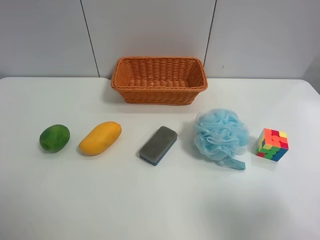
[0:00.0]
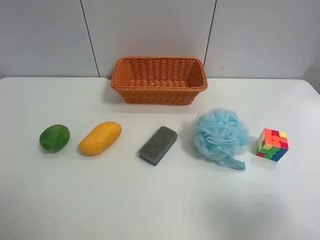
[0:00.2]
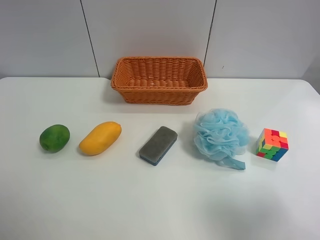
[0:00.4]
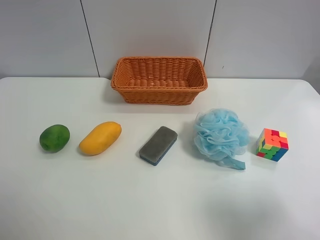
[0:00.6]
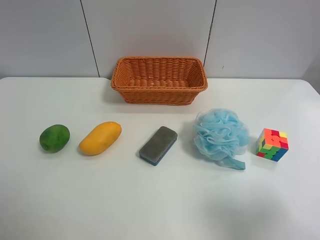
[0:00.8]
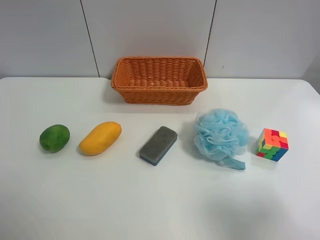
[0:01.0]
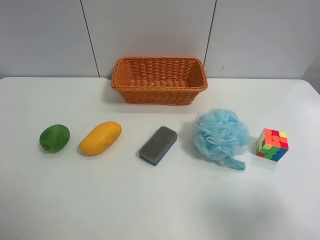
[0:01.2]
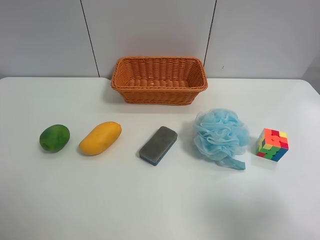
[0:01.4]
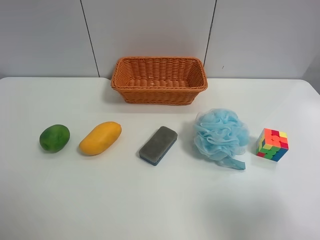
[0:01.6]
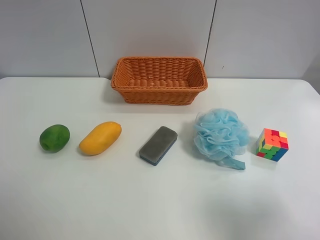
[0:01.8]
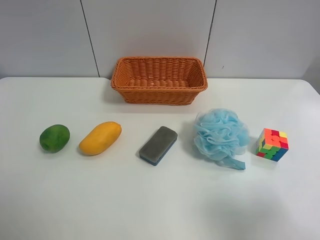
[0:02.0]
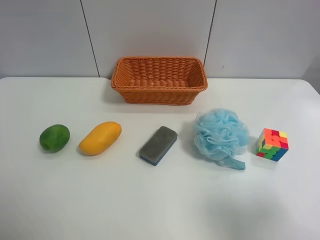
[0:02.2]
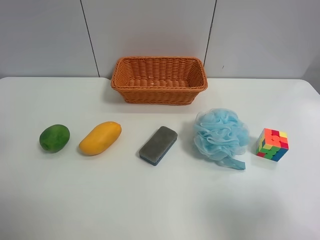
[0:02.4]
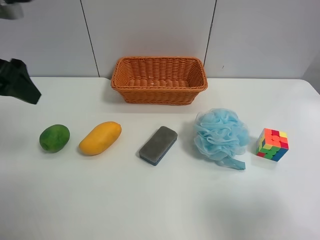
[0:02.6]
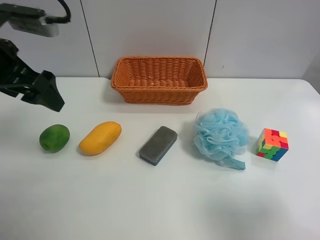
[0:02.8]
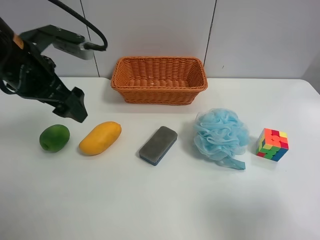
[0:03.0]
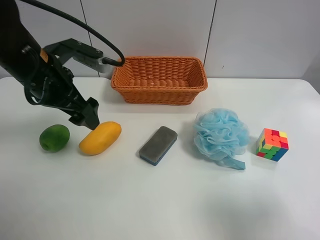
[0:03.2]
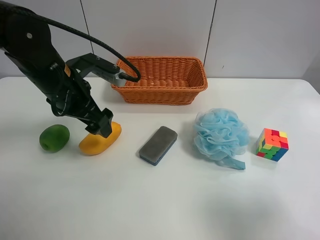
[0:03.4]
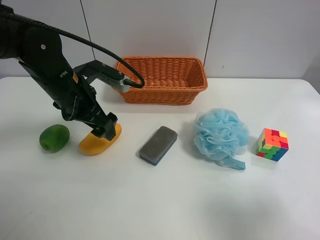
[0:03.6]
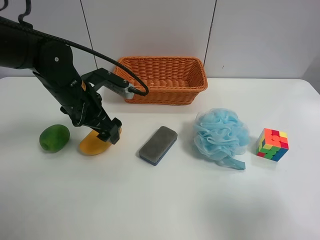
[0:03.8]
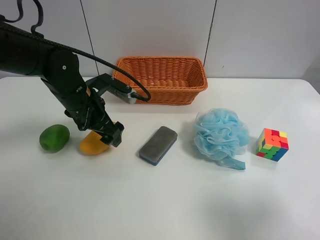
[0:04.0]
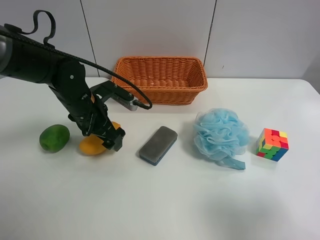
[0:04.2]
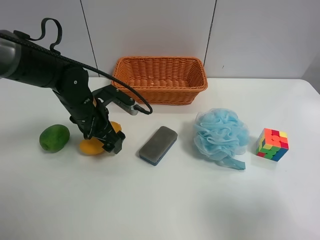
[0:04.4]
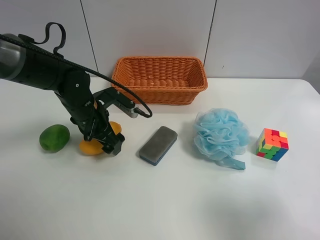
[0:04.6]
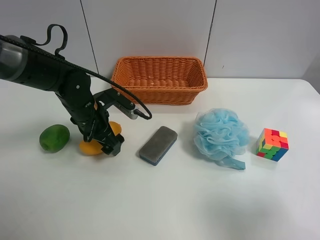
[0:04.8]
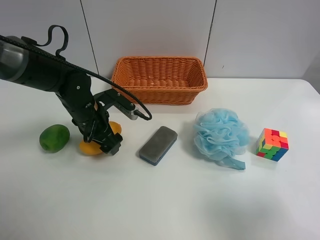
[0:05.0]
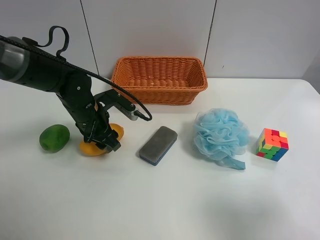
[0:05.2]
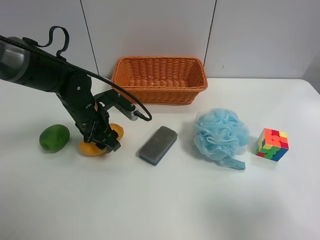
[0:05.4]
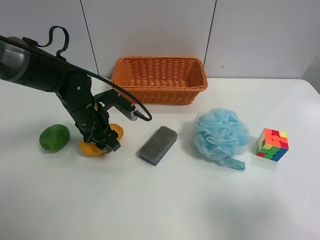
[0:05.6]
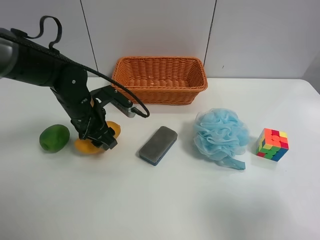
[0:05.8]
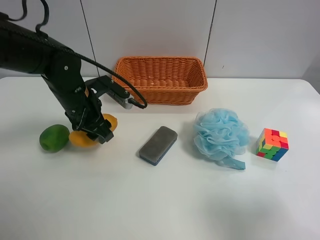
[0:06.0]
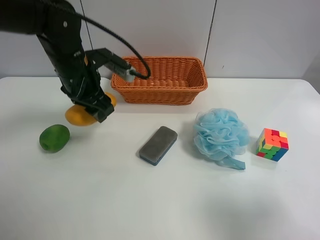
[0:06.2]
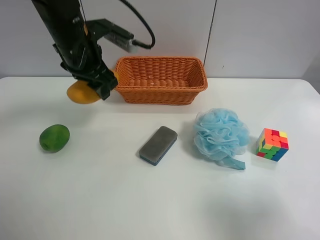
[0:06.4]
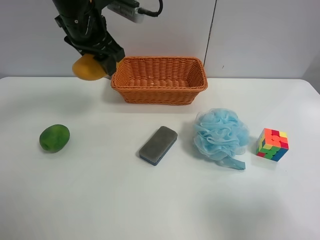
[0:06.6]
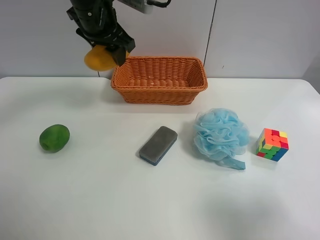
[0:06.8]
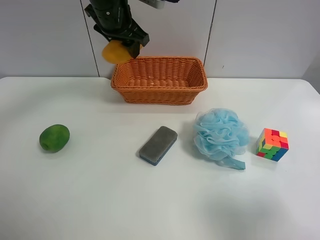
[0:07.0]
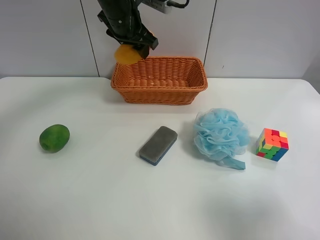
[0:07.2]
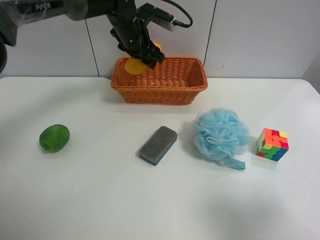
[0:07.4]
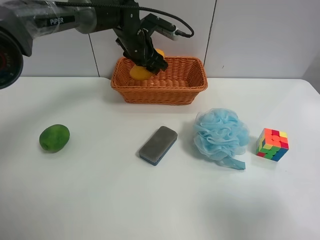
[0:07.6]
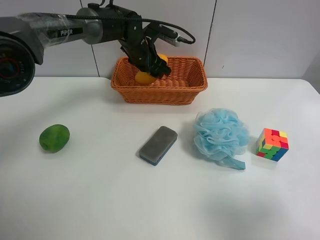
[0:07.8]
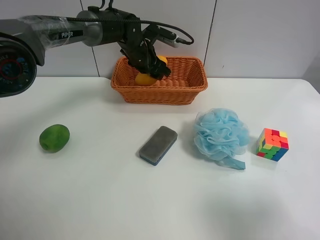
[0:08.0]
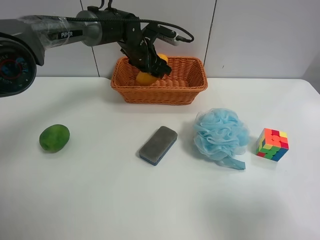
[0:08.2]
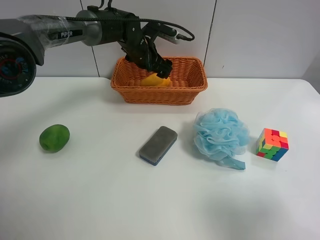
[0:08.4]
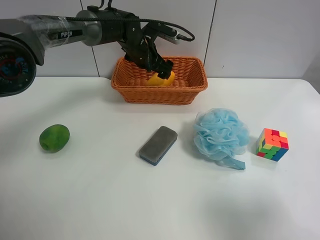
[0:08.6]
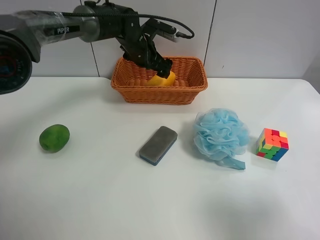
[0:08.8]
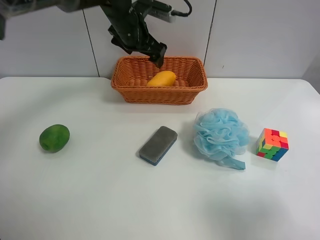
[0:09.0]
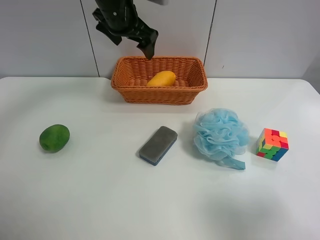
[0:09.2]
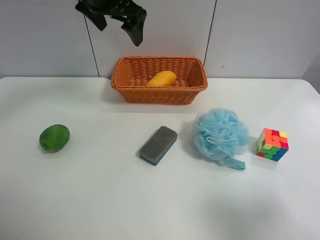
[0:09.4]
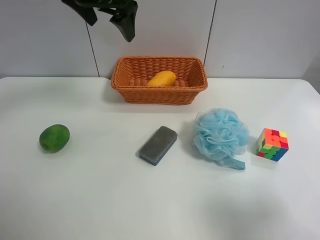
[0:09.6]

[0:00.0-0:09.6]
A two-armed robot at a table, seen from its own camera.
Task of the whole recording: use the left gripper to grab items from the table and place them in the basket.
Step, 0:00.0 to 0:05.2: Grasp the mango with the left gripper.
Step, 0:05.4 to 0:08.6: Place the mango into the basket with the left gripper.
0:00.0 to 0:01.6: Both grippers stay about where they are.
0:01.6 to 0:03.2: The left gripper goes about 30 cm forward and to the right.
0:03.2 to 0:04.8: The left gripper heads downward, covering roughly 10 cm.
0:04.8 to 0:06.4: The left gripper travels upward by about 15 cm, and closes.
0:06.4 to 0:08.0: The left gripper travels forward, downward and to the right by roughly 20 cm.
0:08.0 to 0:09.6: The left gripper moves upward and backward, about 20 cm, and opens up.

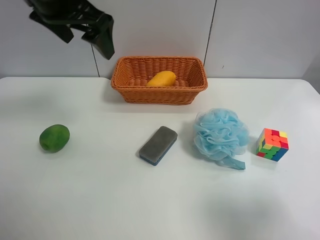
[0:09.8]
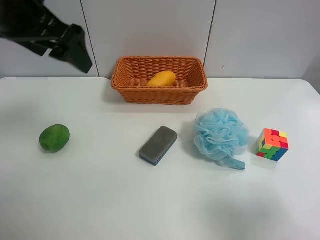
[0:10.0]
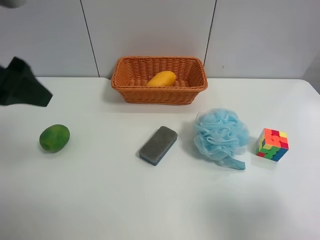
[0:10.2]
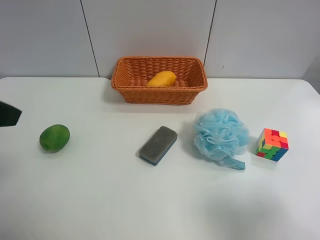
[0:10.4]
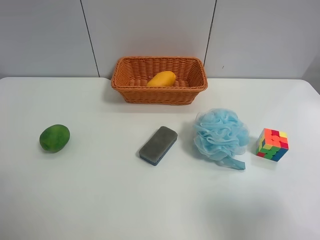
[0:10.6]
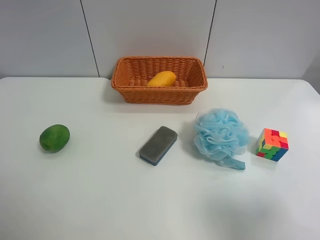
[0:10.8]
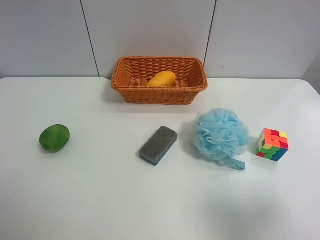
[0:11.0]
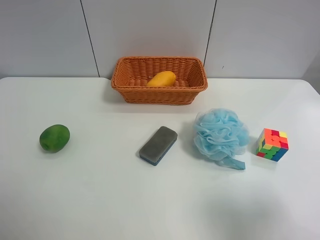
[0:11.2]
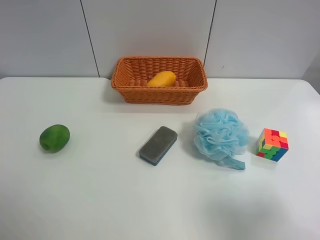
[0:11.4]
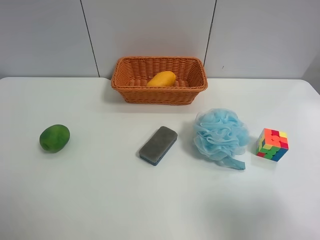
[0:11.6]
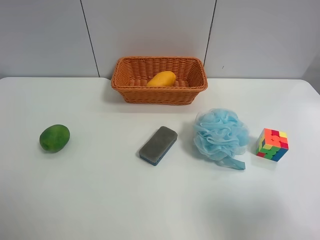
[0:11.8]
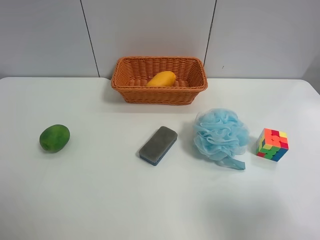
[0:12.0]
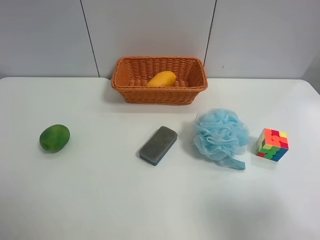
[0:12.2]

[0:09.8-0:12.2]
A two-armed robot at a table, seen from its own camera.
Task of the whole recording: use the left gripper to grab items from the table and place them in the basket.
0:09.8 to 0:11.0: The left gripper shifts roughly 30 cm backward and to the left.

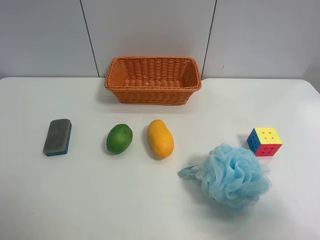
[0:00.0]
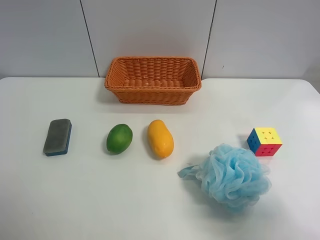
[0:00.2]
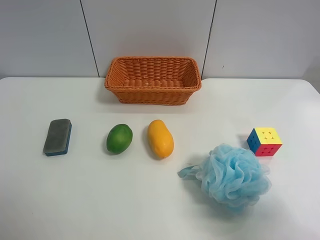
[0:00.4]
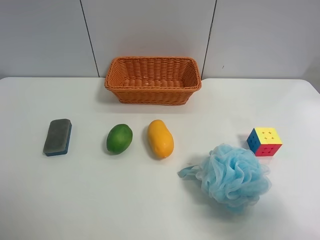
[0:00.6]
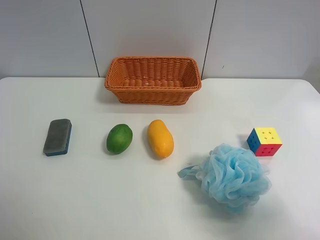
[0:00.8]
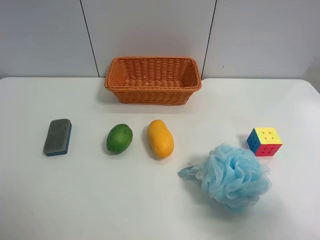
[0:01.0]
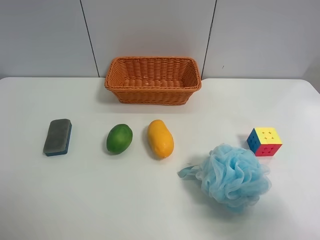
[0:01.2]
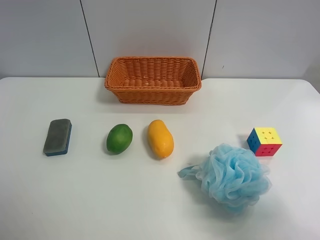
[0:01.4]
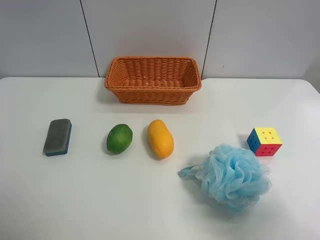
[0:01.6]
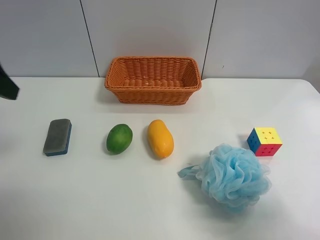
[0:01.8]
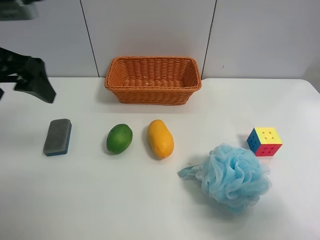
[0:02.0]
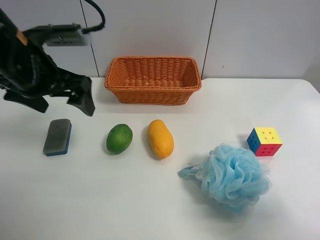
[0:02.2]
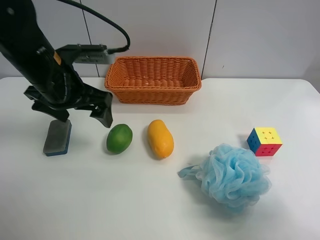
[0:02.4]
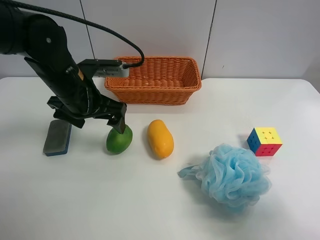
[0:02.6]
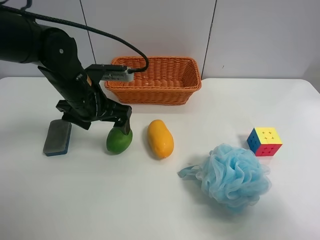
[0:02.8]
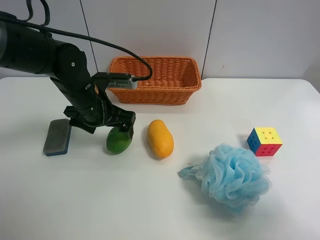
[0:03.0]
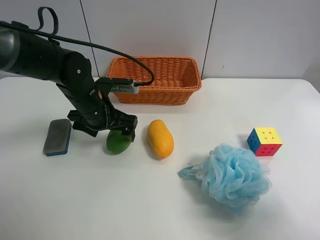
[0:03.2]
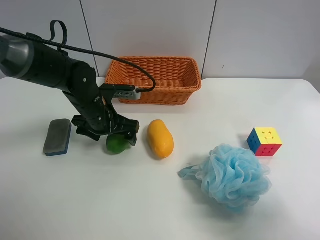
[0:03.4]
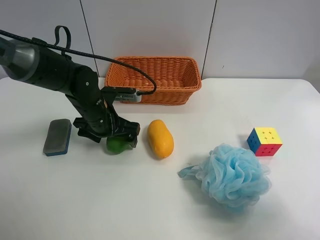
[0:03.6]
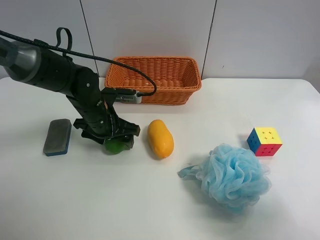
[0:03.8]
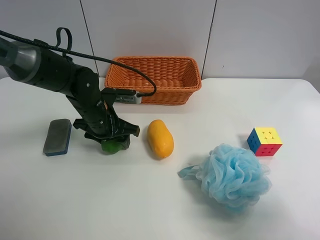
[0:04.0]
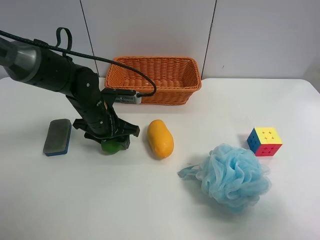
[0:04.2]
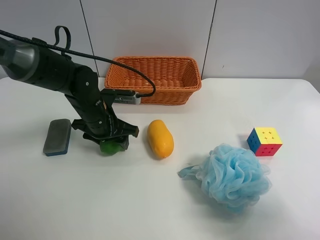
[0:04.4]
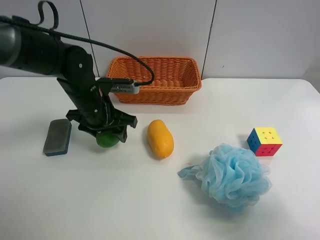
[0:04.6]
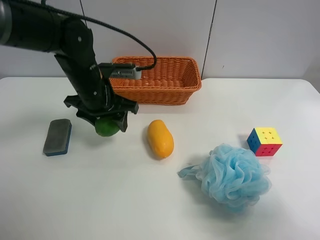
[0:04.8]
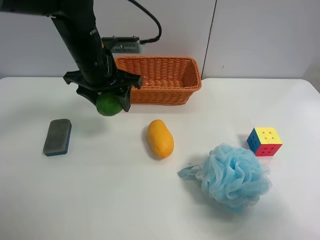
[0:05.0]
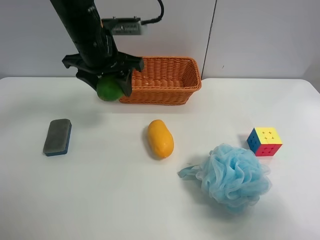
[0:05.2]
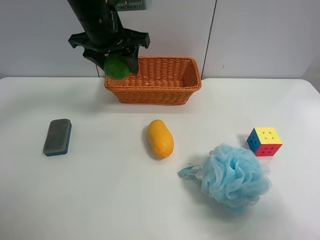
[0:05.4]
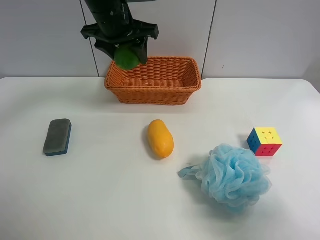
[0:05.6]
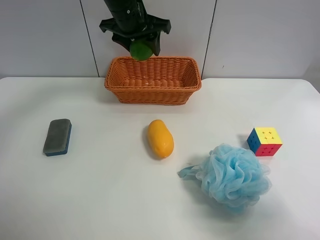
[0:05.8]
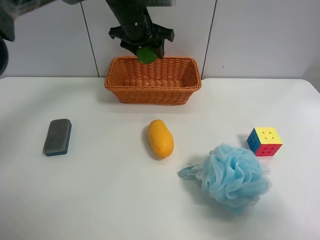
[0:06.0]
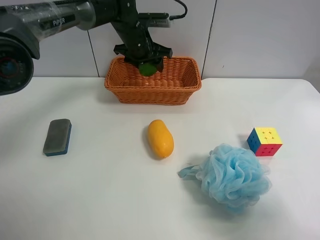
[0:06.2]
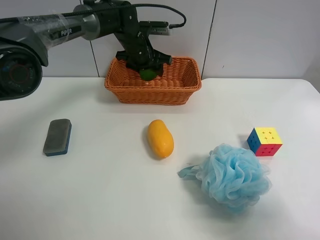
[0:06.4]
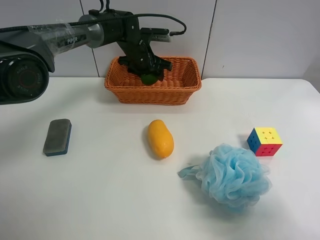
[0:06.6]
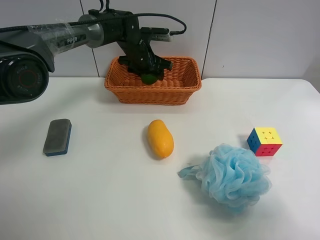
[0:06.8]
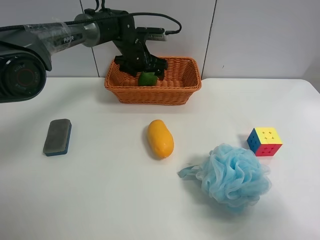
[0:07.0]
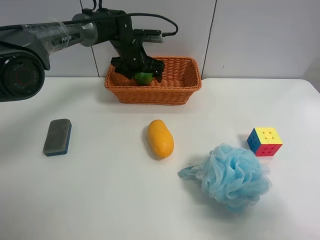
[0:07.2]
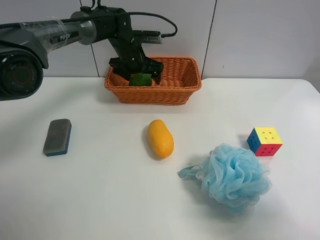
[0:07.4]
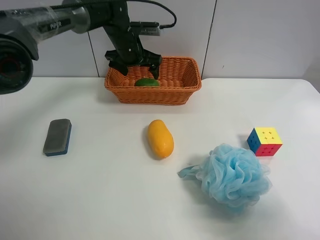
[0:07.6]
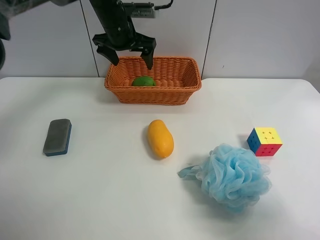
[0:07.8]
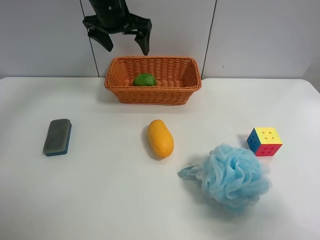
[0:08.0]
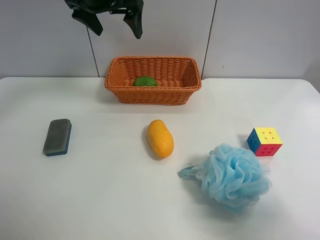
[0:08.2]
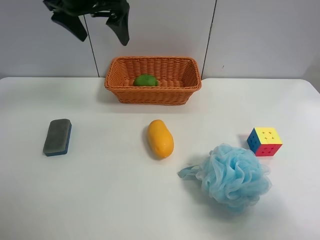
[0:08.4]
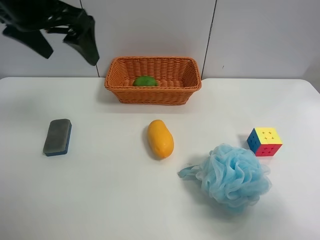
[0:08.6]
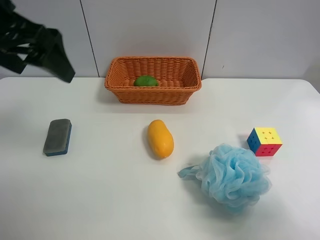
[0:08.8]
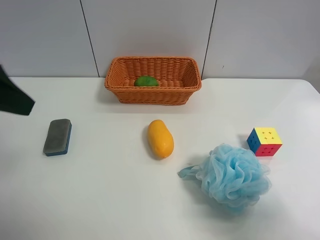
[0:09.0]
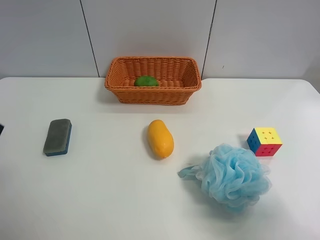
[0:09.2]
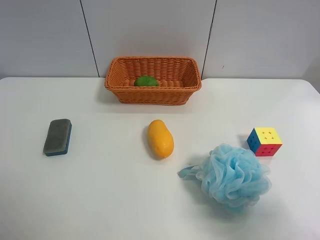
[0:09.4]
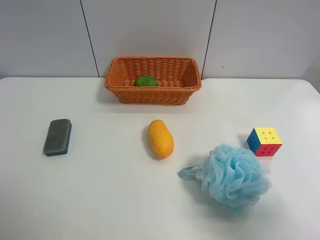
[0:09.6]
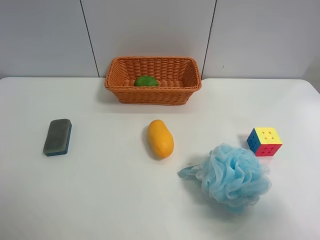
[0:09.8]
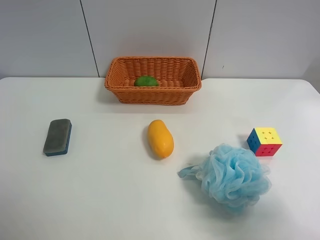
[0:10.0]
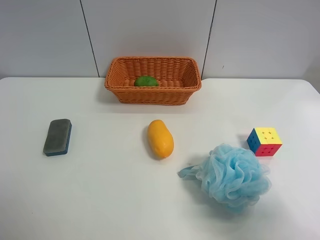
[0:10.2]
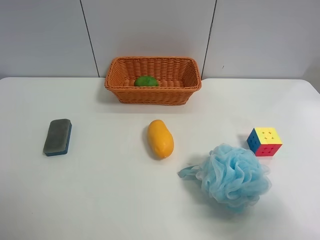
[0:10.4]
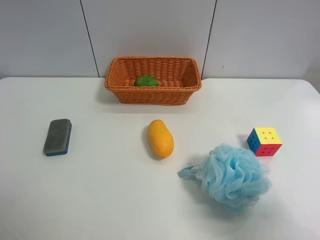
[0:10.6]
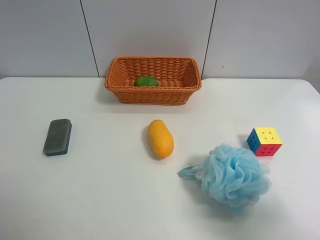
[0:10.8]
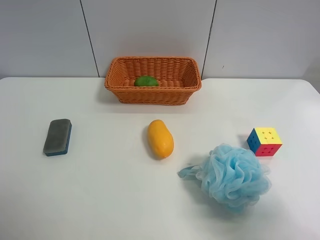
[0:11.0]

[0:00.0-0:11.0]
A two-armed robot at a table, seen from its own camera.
Task of the whole recording: use the left gripper to grab items from the table and place them in the basket.
Step, 0:00.0 to 0:04.0: Grasp the apple rubber puff with the left gripper.
Step, 0:04.2 to 0:07.2: Place the apple rubber puff into the basket with the left gripper.
0:01.6 to 0:03.2: The left gripper shifts approximately 35 cm forward, downward and to the right.
0:03.2 to 0:04.8: The left gripper closes.
0:04.8 to 0:06.2: The left gripper heads forward, to the right and upward, covering approximately 20 cm.
0:06.2 to 0:07.8: The left gripper opens its fingers.
0:07.8 to 0:09.4: The left gripper goes some 40 cm backward and to the left.
